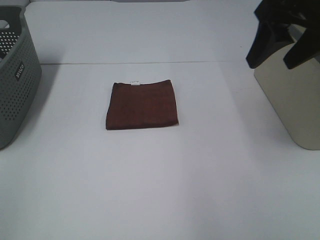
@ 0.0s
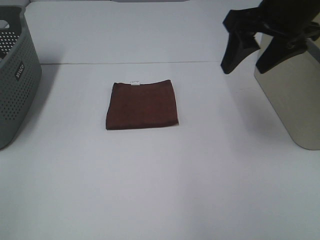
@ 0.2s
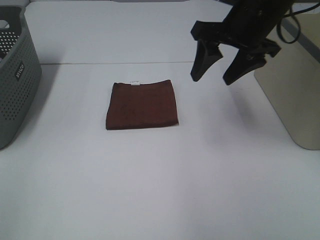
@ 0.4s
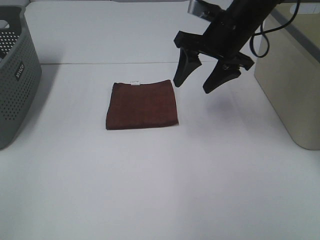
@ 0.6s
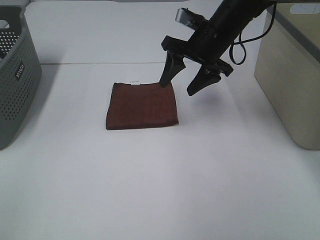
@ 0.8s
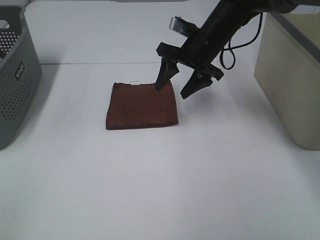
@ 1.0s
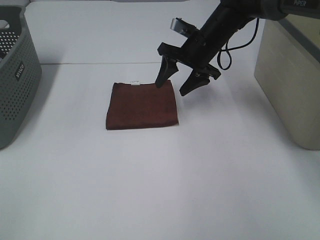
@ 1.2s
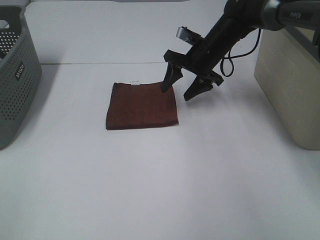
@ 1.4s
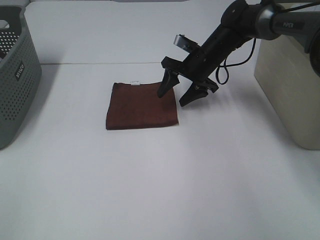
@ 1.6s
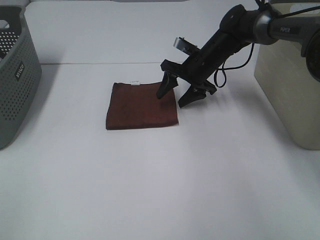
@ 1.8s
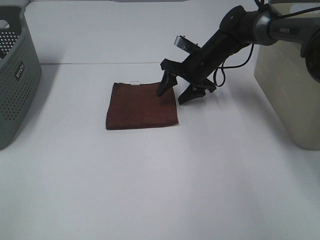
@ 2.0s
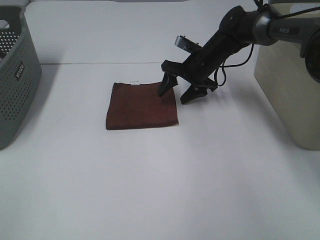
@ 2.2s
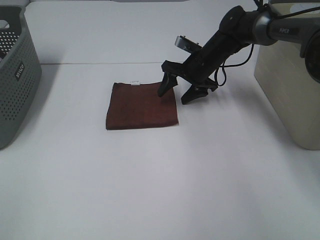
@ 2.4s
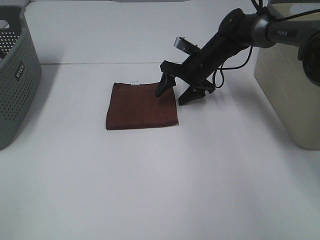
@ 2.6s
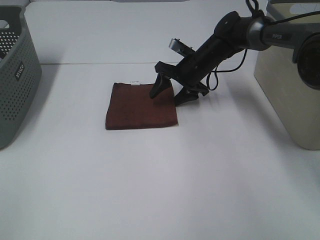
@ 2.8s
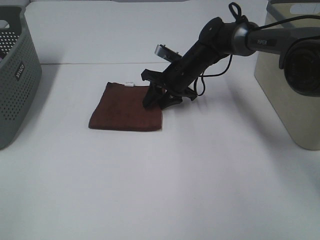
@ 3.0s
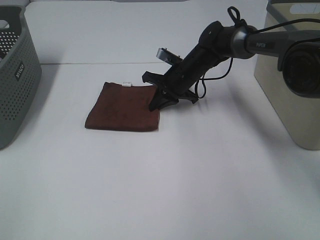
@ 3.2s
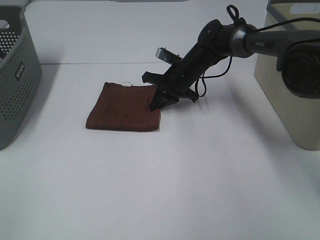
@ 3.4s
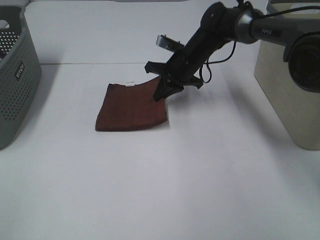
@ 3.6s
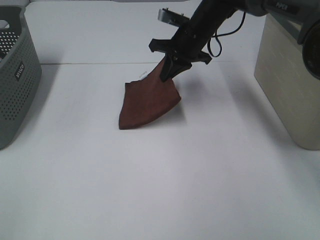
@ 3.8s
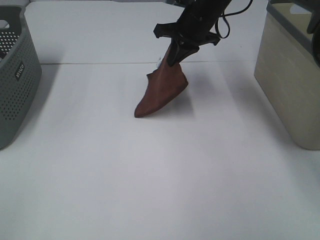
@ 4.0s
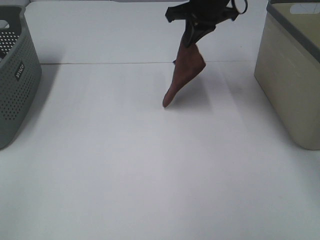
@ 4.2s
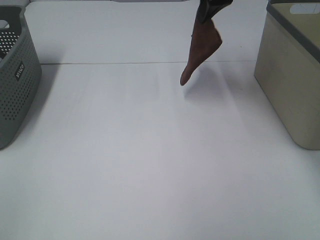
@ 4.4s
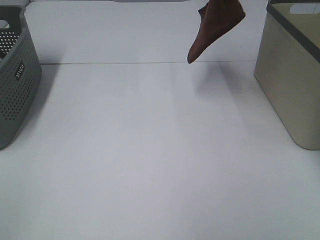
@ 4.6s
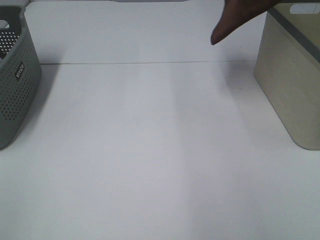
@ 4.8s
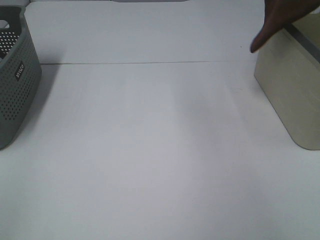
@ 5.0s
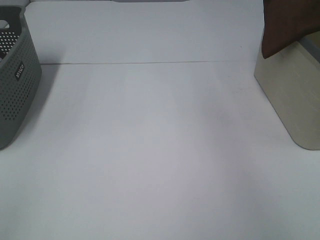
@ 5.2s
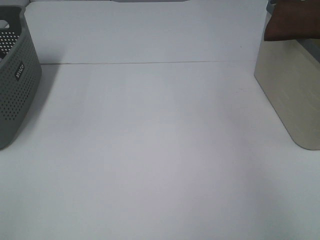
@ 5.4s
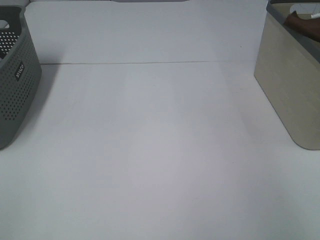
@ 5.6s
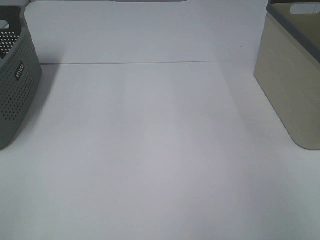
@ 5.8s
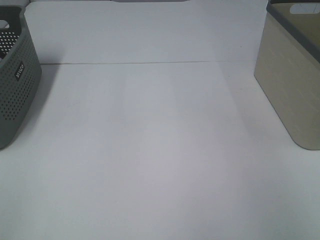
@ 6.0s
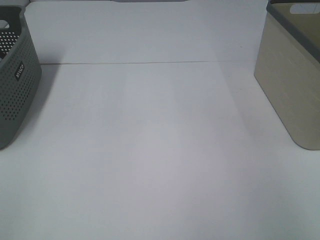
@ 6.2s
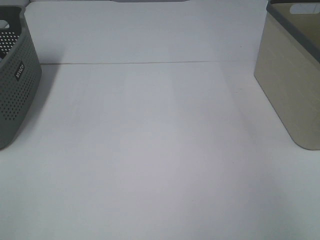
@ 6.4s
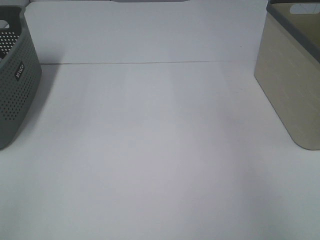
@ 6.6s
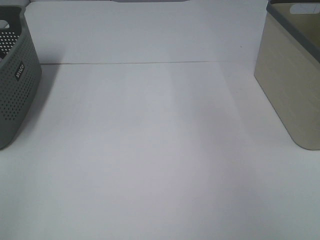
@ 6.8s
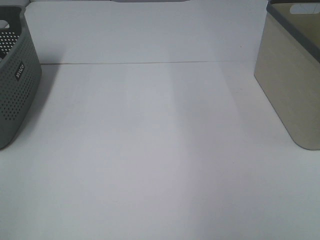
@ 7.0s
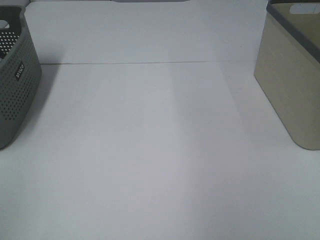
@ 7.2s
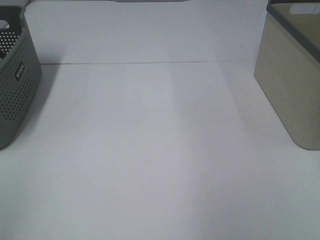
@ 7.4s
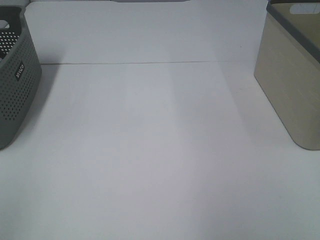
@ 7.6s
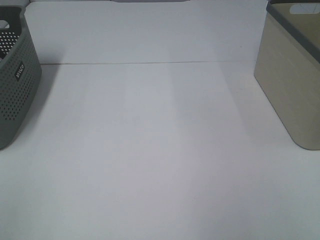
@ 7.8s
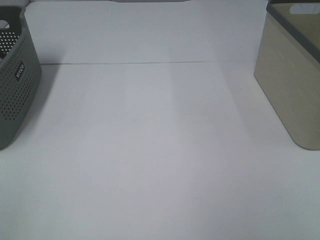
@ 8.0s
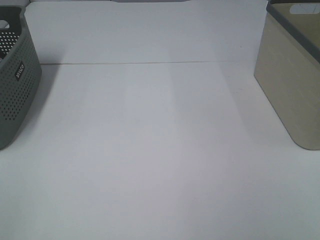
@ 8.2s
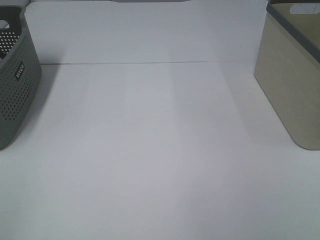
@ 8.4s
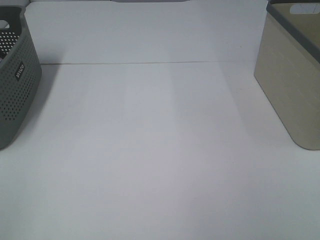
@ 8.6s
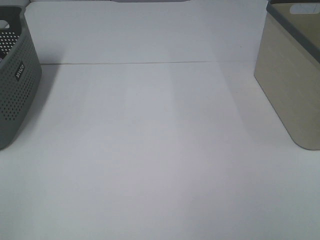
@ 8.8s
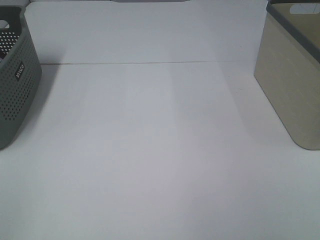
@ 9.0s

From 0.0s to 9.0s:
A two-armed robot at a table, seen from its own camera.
Step, from 0.0s to 3.2s: Right hand: grab the folded brown towel.
Step, from 3.4s to 6.0s: Right hand: place the brown towel in right basket.
From 0.0s to 1.6s: The right gripper goes roughly 30 cm downward, forward and to the left.
From 1.6s to 3.0s: The right gripper ends up approximately 5 cm from where it was.
From 3.0s to 4.4s: The right gripper moves upward, about 25 cm, and closes.
From 4.4s to 6.0s: The right gripper goes approximately 30 cm to the right, and opens.

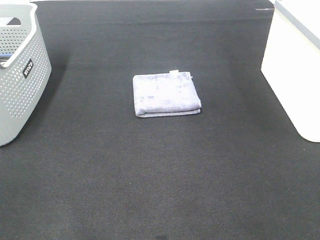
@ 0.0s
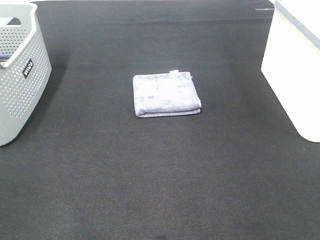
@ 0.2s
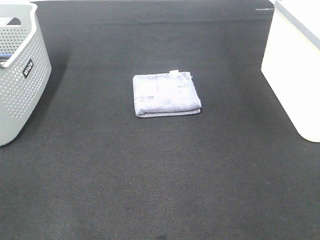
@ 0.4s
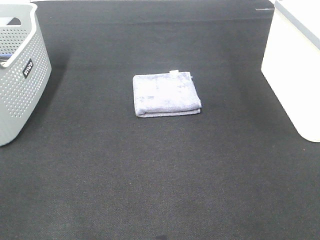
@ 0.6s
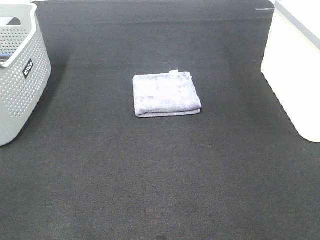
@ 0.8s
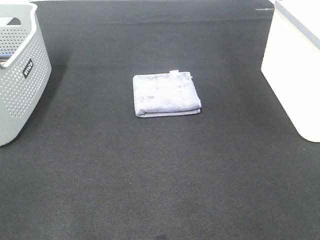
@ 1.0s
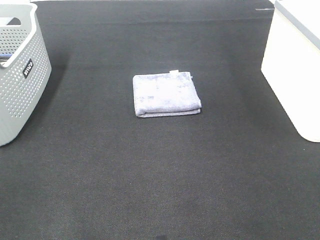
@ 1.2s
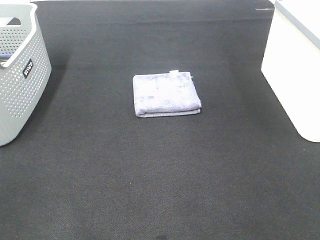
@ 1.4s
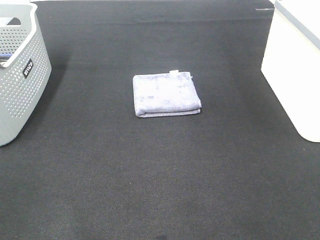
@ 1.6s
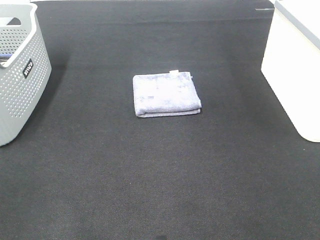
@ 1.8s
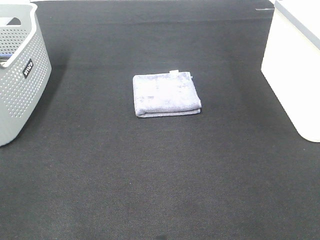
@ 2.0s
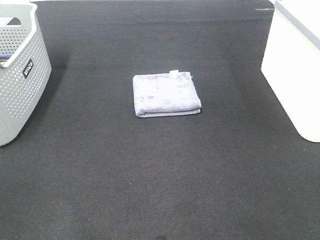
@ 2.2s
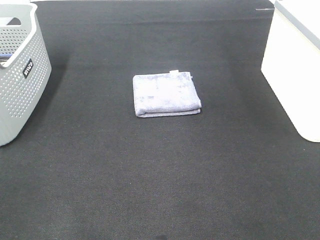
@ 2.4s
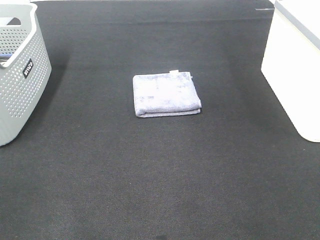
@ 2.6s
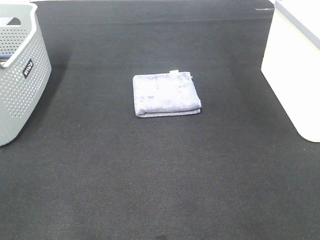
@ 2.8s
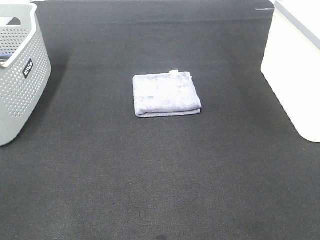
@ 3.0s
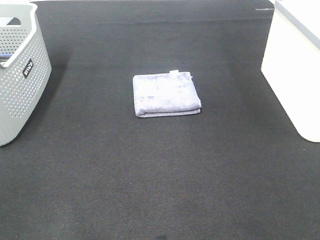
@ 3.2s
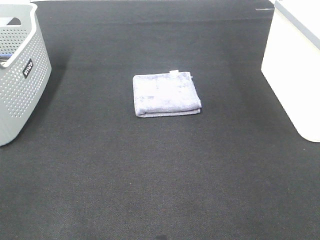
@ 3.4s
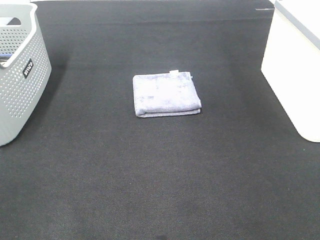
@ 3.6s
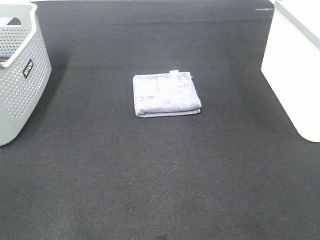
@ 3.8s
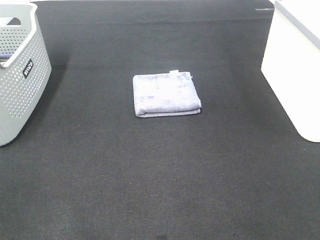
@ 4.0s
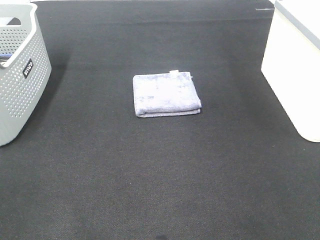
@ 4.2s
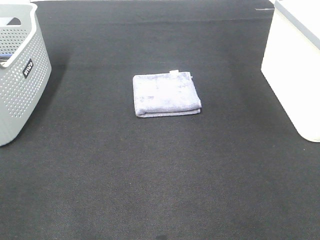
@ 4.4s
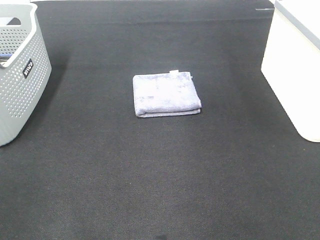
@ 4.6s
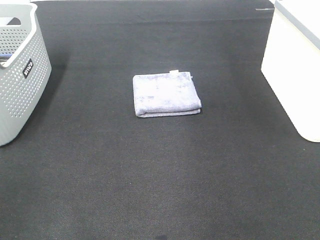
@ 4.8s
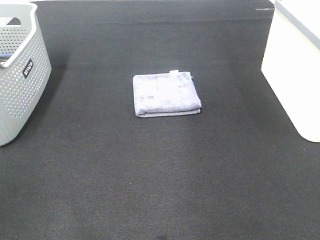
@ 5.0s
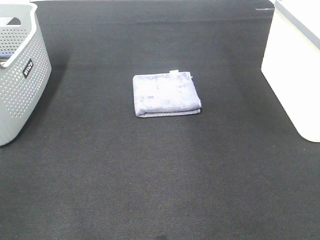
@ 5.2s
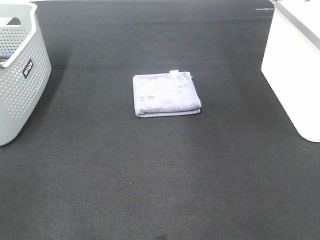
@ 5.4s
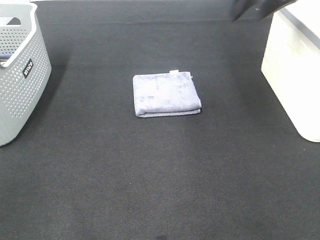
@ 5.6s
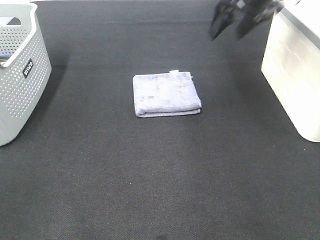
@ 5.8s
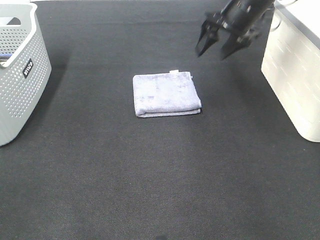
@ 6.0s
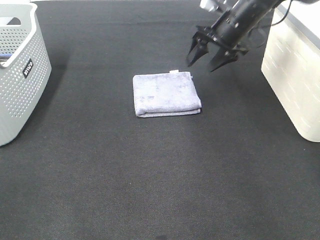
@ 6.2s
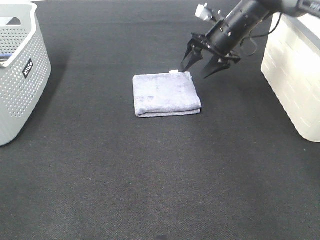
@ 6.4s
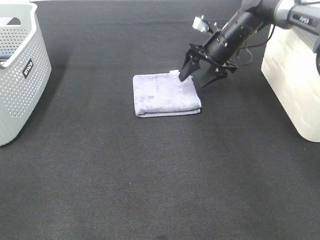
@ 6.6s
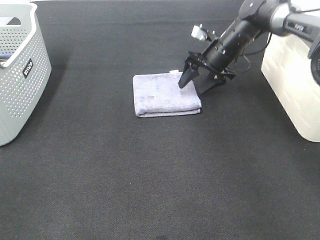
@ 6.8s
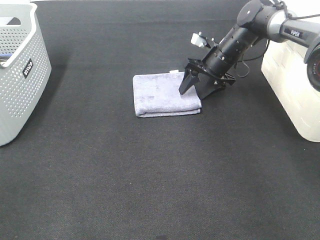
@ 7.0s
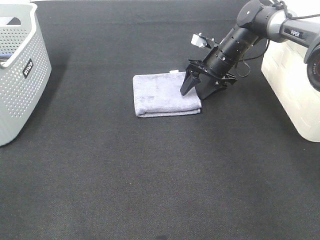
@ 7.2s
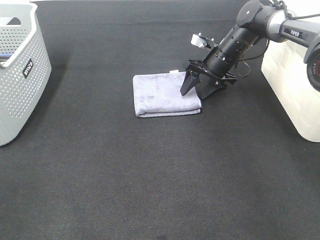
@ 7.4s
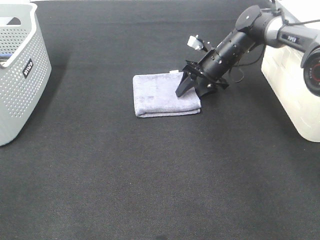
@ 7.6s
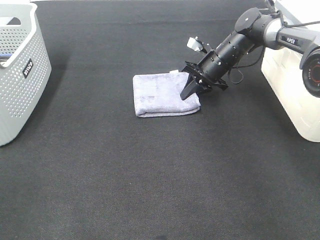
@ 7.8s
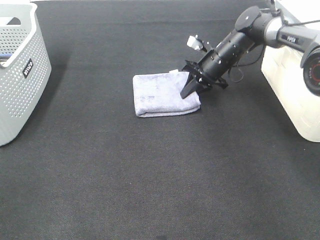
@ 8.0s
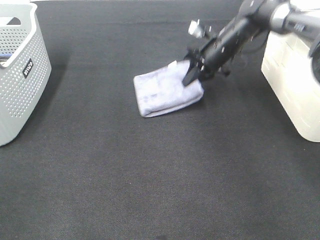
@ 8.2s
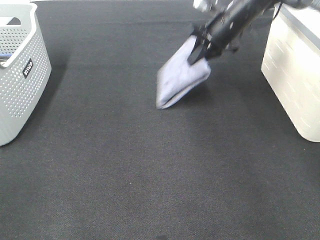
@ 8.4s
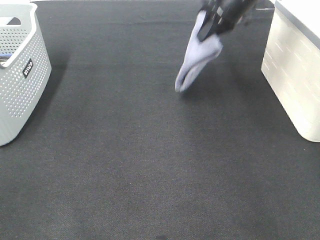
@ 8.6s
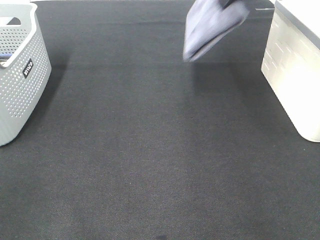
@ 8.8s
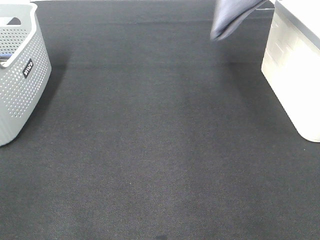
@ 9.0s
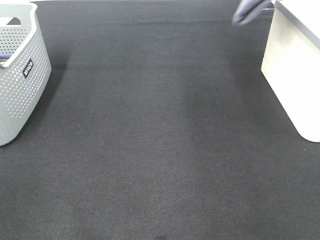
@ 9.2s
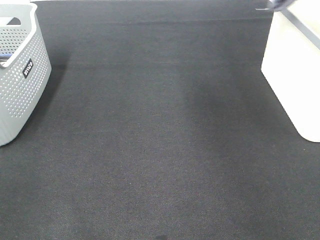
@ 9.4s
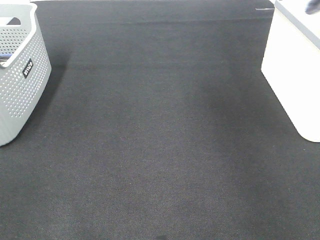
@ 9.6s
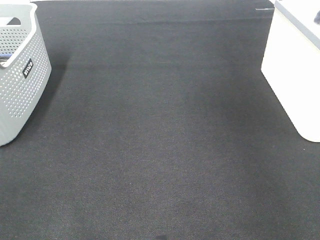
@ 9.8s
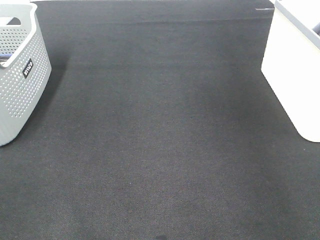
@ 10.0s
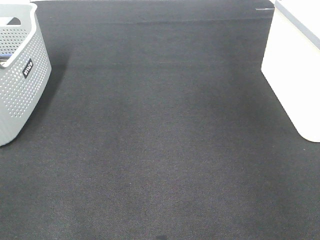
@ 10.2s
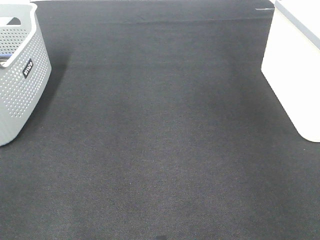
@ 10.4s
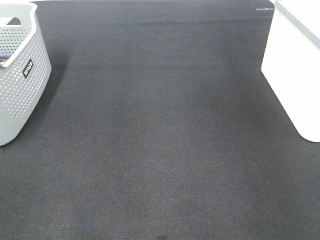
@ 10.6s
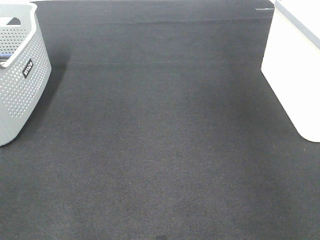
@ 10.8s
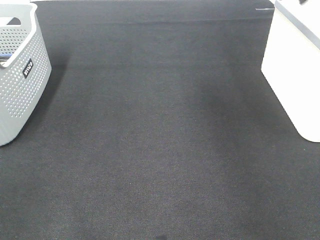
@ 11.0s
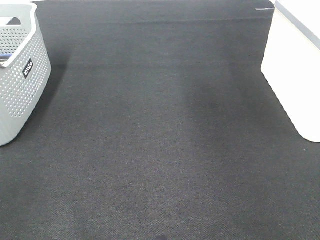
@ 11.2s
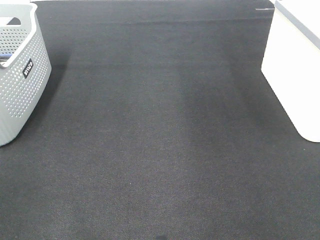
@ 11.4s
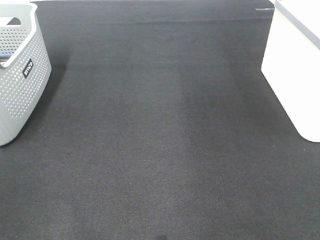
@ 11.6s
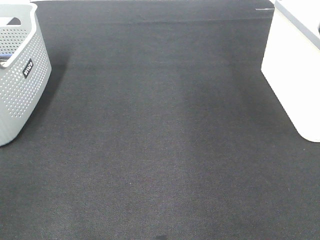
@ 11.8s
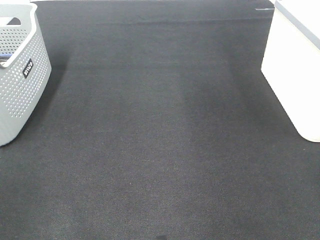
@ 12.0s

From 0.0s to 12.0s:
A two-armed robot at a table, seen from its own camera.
Step, from 0.0s to 7.8s: Right hand: grab the folded grey towel.
Step, from 8.0s to 10.8s: Right hand: place the grey towel in right basket.
From 0.0s to 3.0s: Both grippers stay about where they are.
From 4.4s to 6.0s: The right gripper goes approximately 40 cm forward.
From 6.0s to 7.6s: The right gripper moves downward, about 15 cm.
From 7.6s to 9.0s: The right gripper goes about 30 cm upward, and closes up.
From 9.0s to 10.4s: The right gripper is displaced to the right and downward by roughly 20 cm, and opens up.

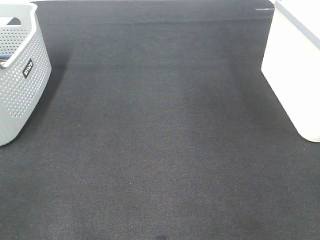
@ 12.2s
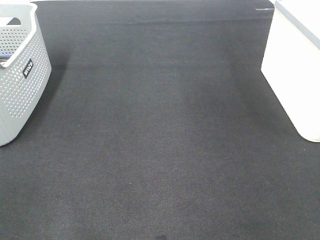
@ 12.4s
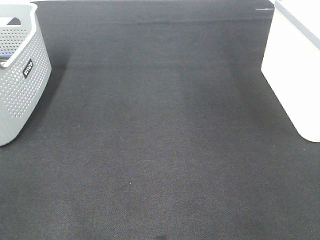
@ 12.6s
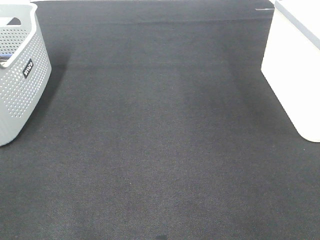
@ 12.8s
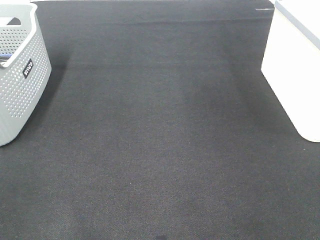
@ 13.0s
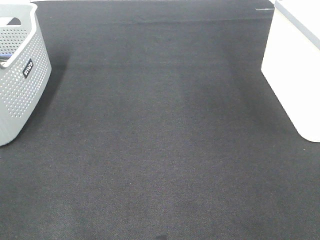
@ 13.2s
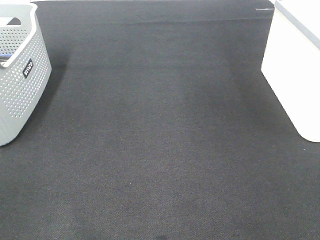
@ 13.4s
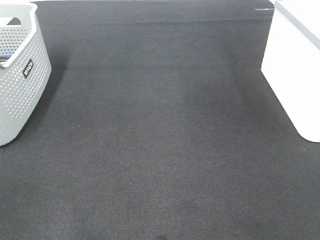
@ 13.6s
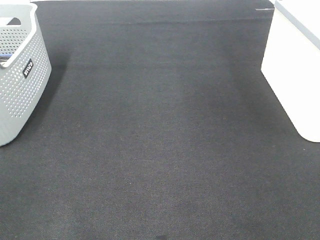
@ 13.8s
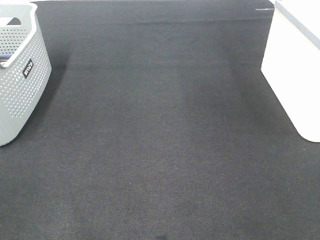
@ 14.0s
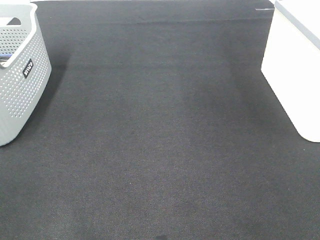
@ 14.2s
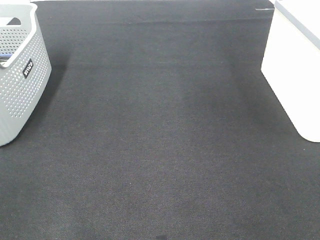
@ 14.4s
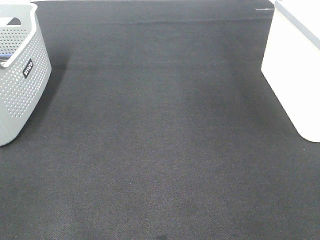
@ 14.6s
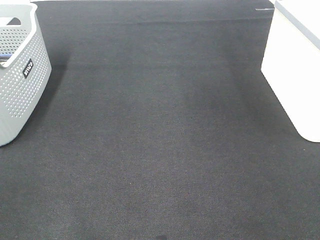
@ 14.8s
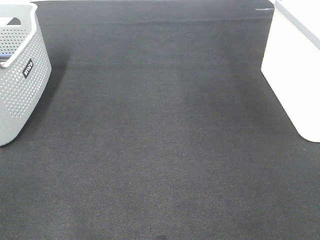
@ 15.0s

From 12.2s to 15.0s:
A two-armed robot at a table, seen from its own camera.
From 13.6s to 15.0s: Both grippers stay put.
